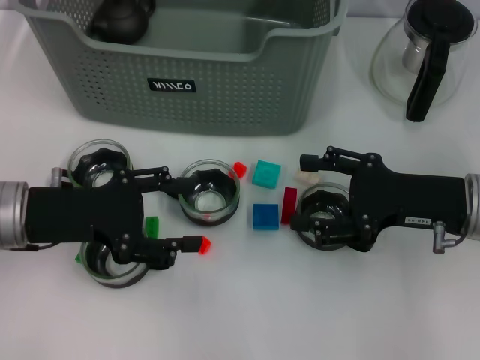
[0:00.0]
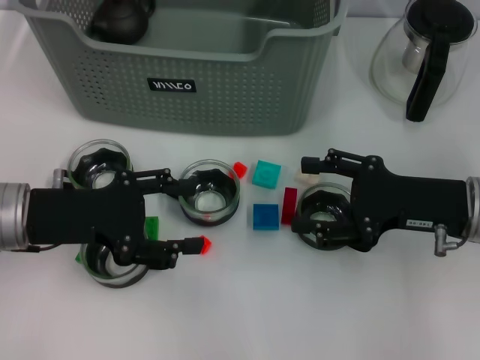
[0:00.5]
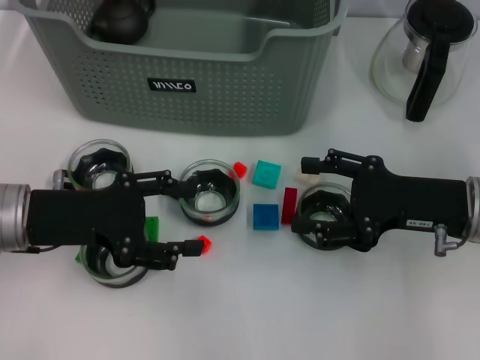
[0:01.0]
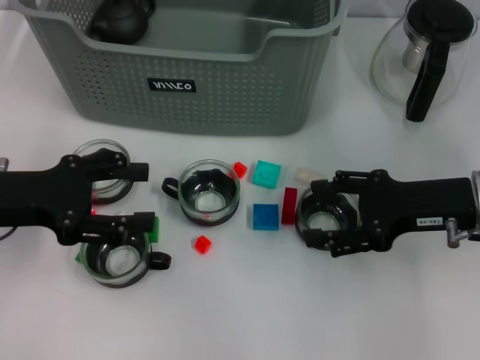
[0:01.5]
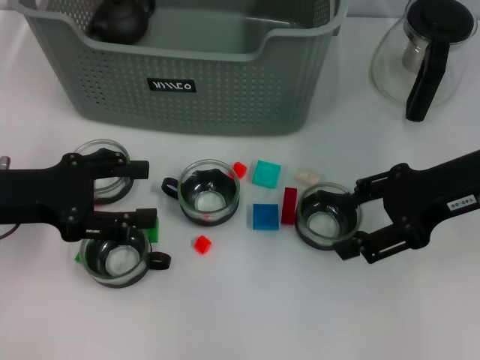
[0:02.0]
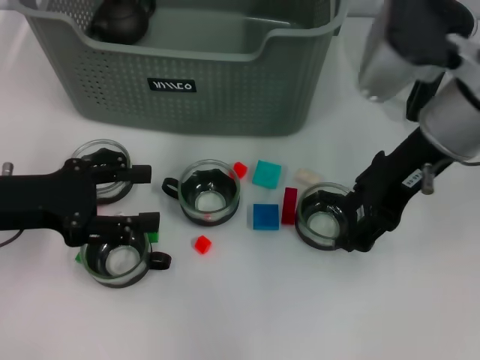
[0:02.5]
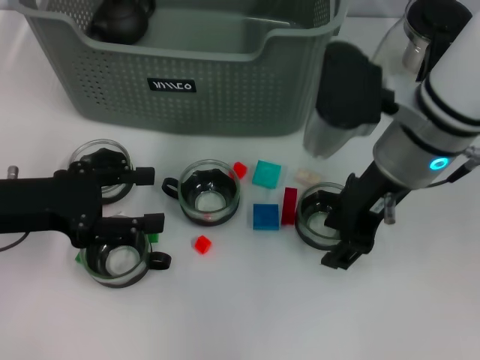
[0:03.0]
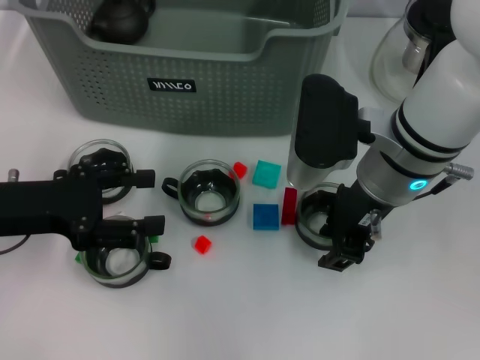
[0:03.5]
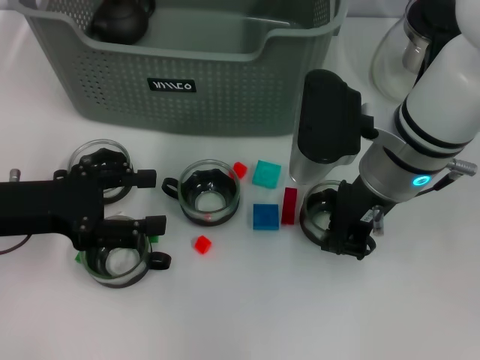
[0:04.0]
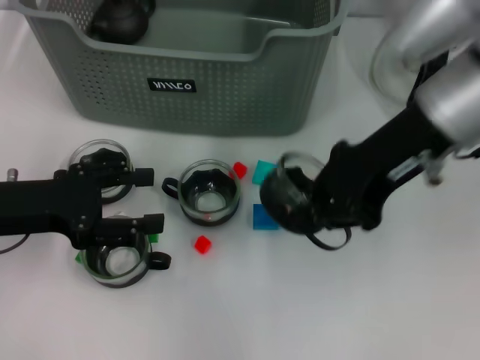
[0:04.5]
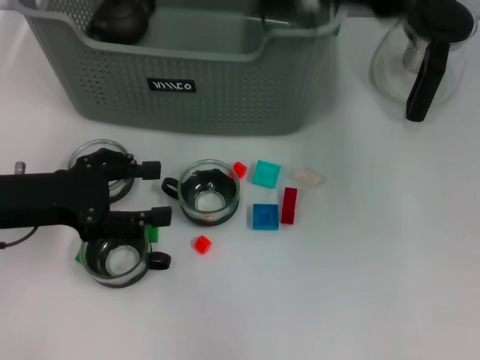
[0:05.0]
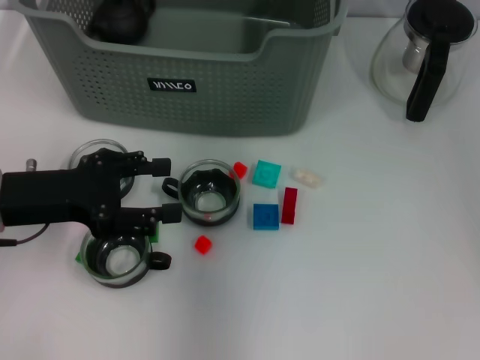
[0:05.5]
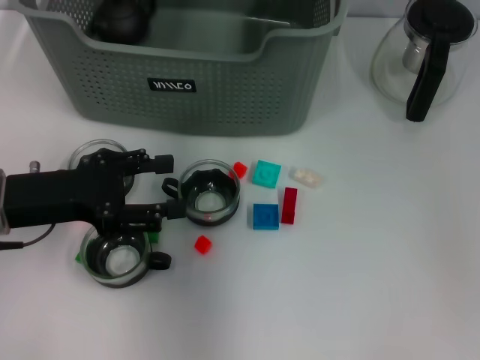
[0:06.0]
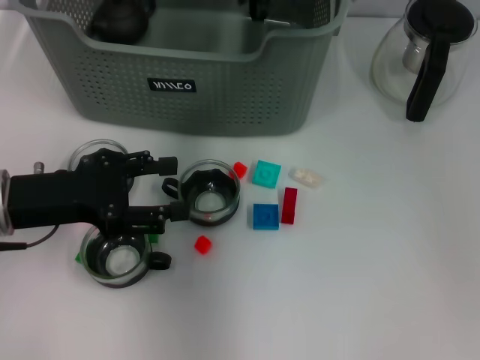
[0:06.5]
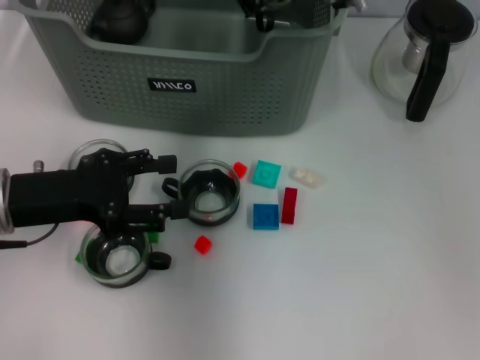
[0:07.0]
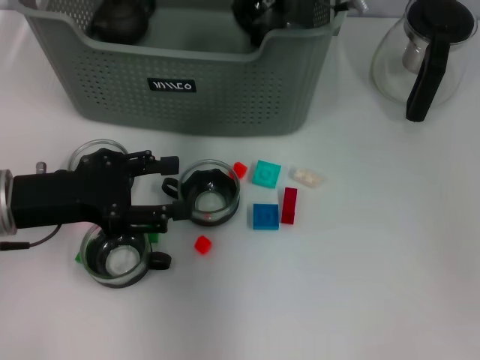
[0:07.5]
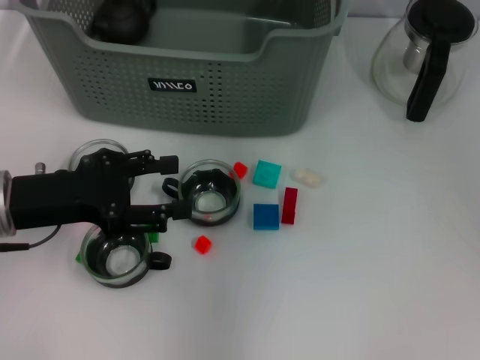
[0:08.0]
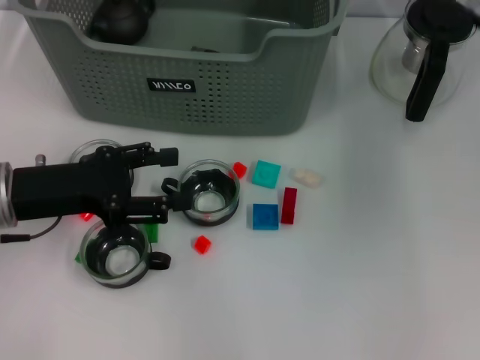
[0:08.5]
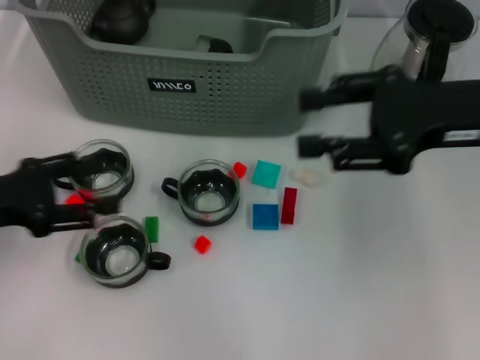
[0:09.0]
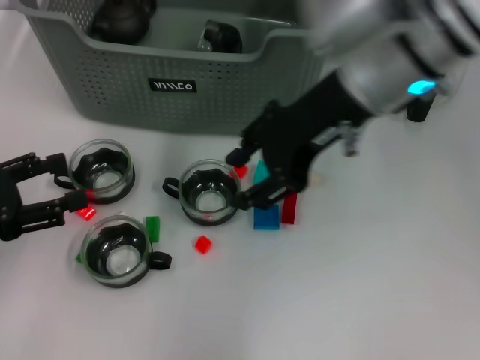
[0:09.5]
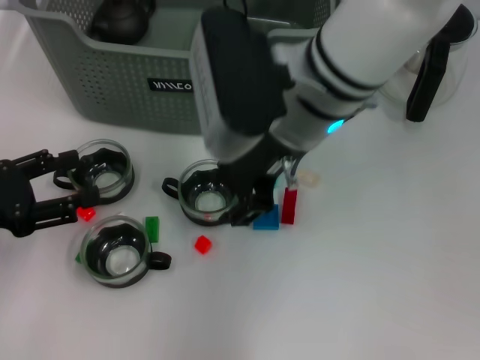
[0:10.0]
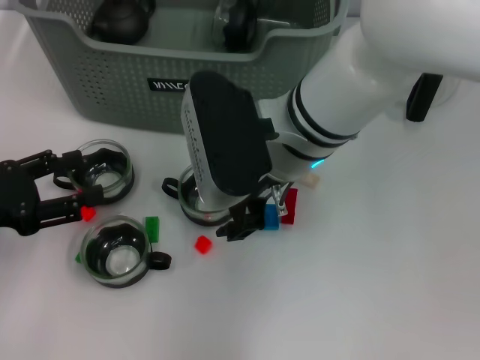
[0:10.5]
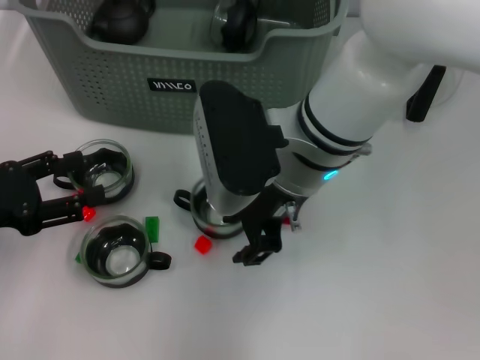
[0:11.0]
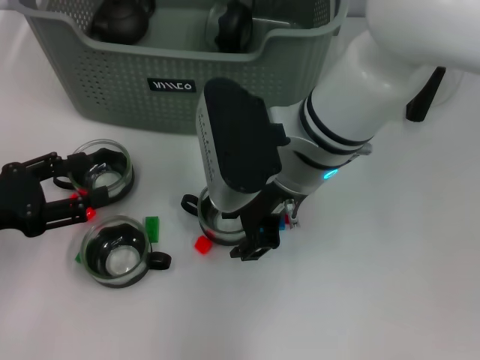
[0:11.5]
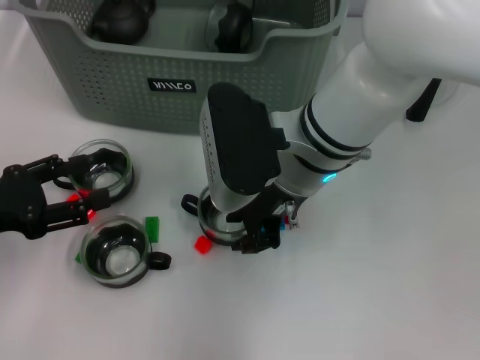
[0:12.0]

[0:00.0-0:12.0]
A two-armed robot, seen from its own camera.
Task of the whole recording: pick up the teacup on the table and place it into the storage bin, pick up the block on the table and place it into the storage bin.
Step, 0:00.0 to 0:03.5: Grasp the cup with right gripper.
Step, 0:04.5 to 0:07.5: Place the cup in the storage box with right gripper.
0:00.0 to 0:02.0: The right gripper moves upward, about 5 cm.
0:02.0 to 0:04.0: The right gripper heads to the left, covering about 10 cm, and closes up.
0:04.0 to 0:06.0: The right gripper moves forward, upward and to the left, about 20 cm.
0:06.0 to 0:08.0: The right gripper changes place by about 5 cm, and opens.
0:08.0 to 0:10.0: The left gripper goes some 5 cm to the left. The right gripper moves backward and downward, approximately 15 cm, and moves roughly 15 cm to the right and comes back.
0:10.0 to 0:12.0: The right gripper goes roughly 5 cm downward.

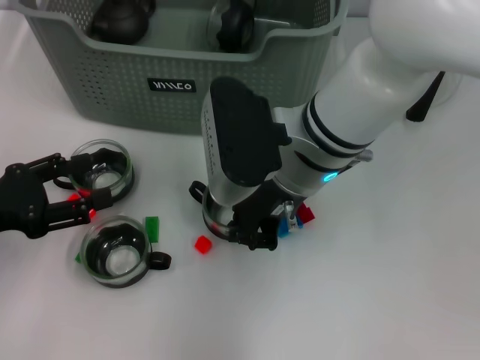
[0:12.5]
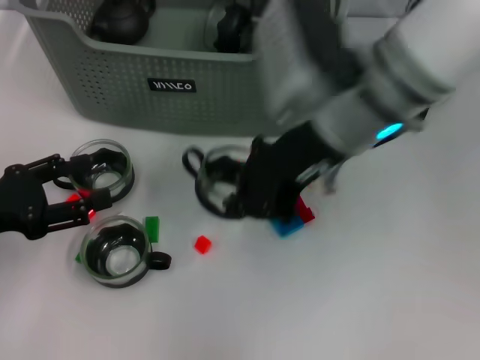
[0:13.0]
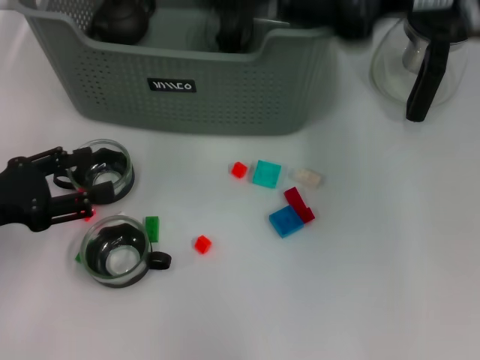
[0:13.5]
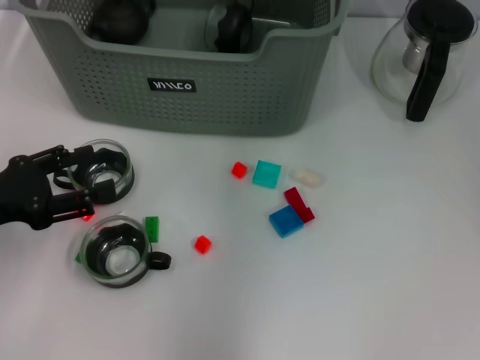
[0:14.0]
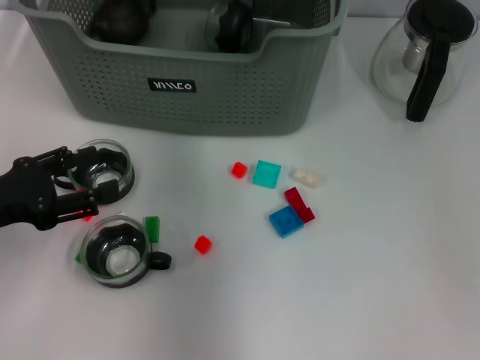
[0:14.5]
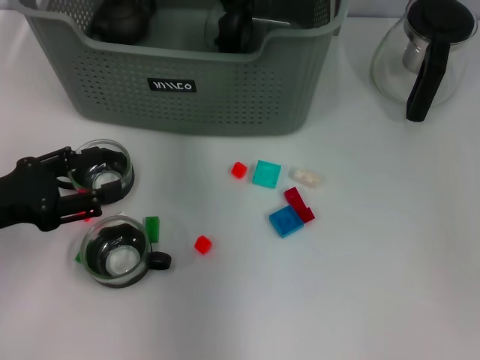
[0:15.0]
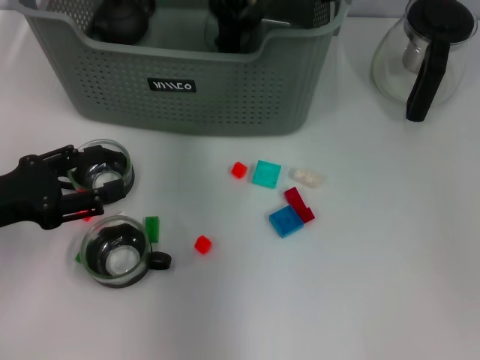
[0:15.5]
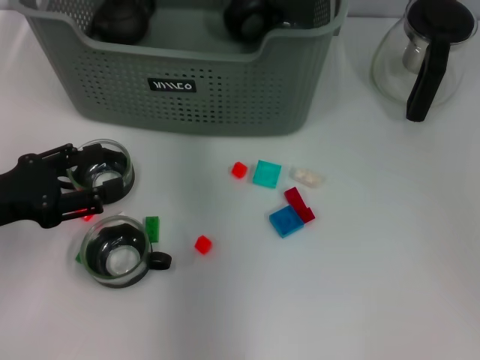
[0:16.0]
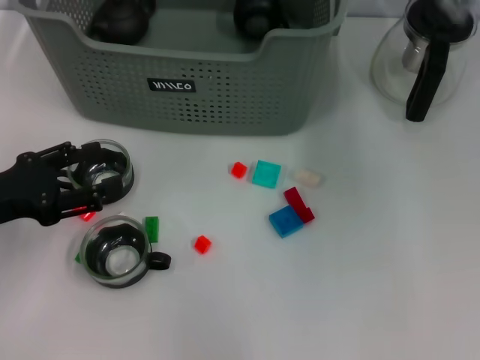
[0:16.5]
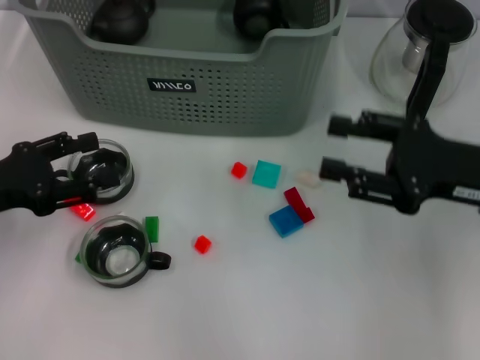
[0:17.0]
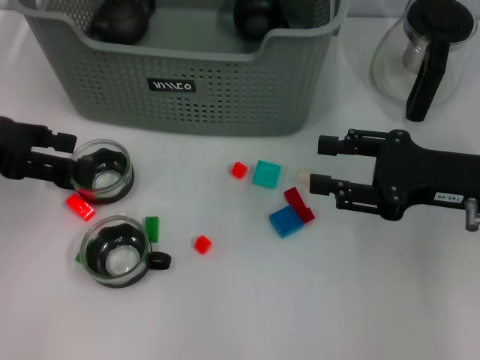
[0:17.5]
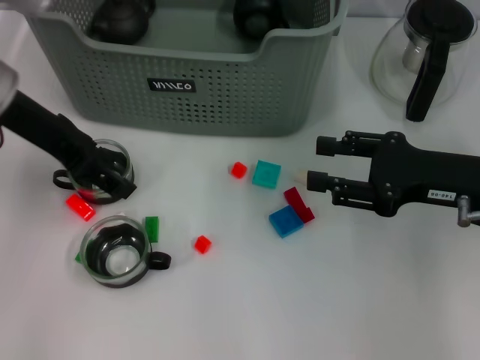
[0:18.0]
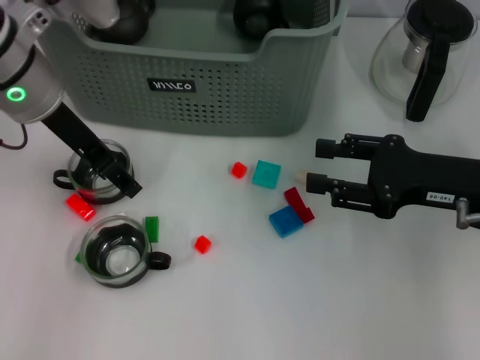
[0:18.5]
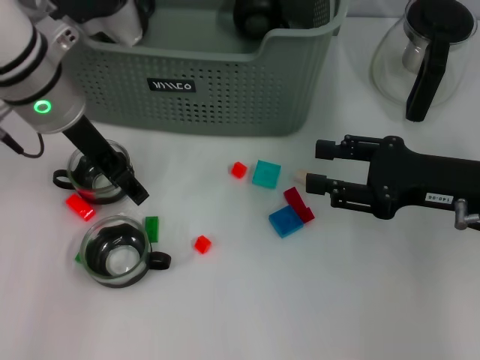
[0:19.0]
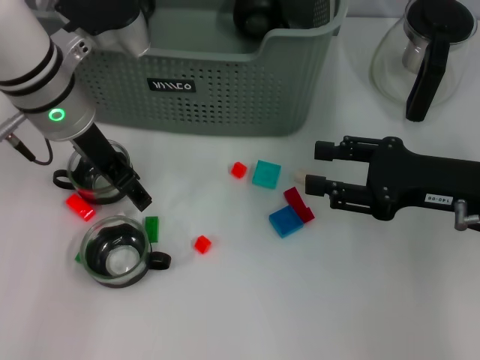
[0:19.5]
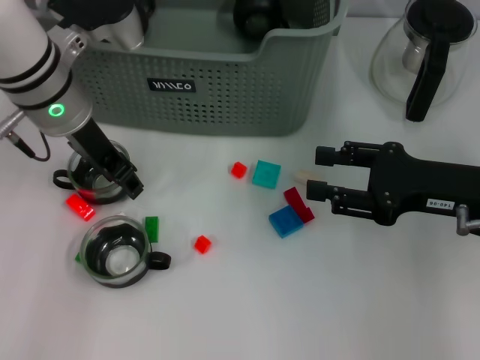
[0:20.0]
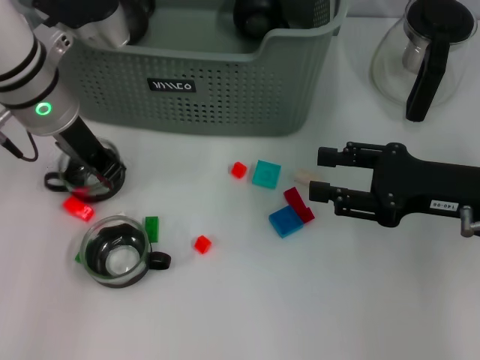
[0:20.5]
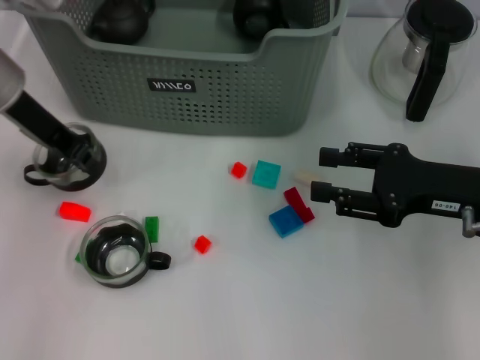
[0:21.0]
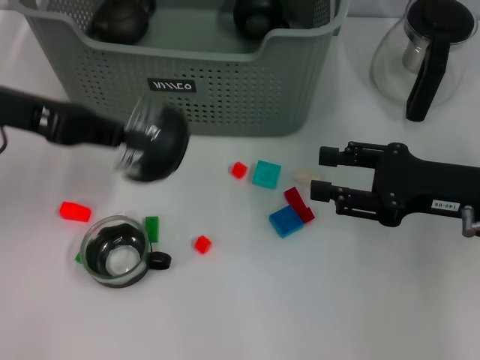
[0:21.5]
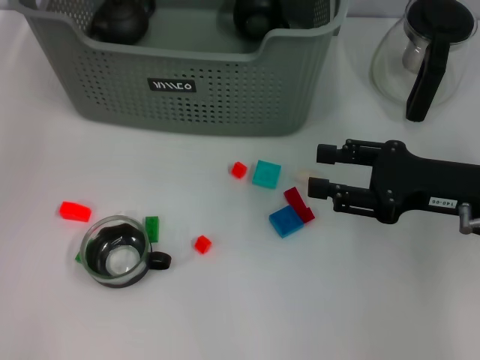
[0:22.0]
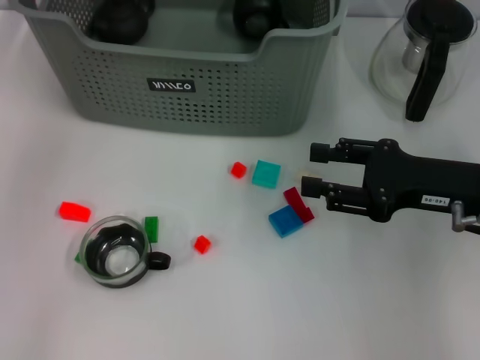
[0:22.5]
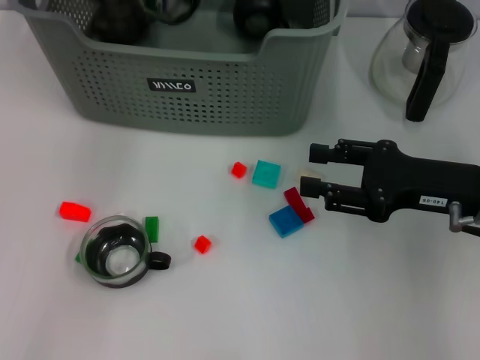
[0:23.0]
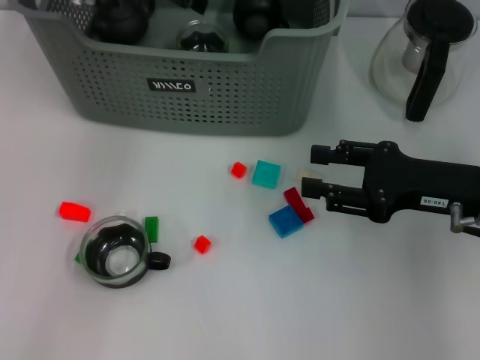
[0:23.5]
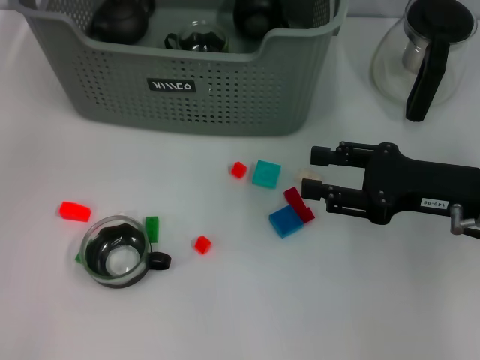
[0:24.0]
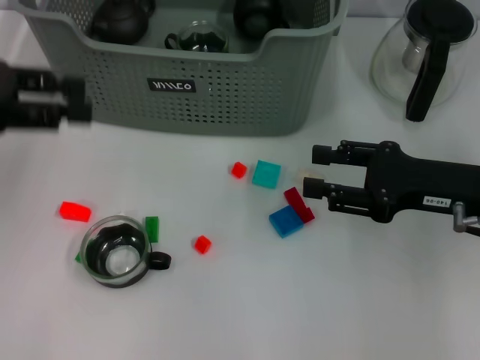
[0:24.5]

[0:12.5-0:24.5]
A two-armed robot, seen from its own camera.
Task of the whole recording: pick up the teacup on the table and place it into the storage bin, pick up the block on the table and place it into the storage bin.
Step, 0:12.5 to 0:15.5: Place the cup in the storage box with right gripper.
Step, 0:16.0 to 0:20.0: Grasp the cup with left gripper.
Step, 0:21.0 to 0:23.5: Place the cup in the storage box with left gripper.
0:12.5 to 0:14.5: The right gripper goes about 15 cm forward and upward.
0:14.5 to 0:16.5: The right gripper goes approximately 15 cm to the right and backward, and opens up.
0:16.5 to 0:18.5: The left gripper moves forward, to the right and upward, about 20 cm; the right gripper heads downward, backward and to the right, covering about 20 cm.
0:18.5 to 0:20.5: The left gripper closes its fingers.
0:20.5 to 0:22.5: The left gripper moves upward and forward, about 15 cm.
0:22.5 to 0:24.5: The left gripper shifts approximately 20 cm backward and to the left, and opens its fingers.

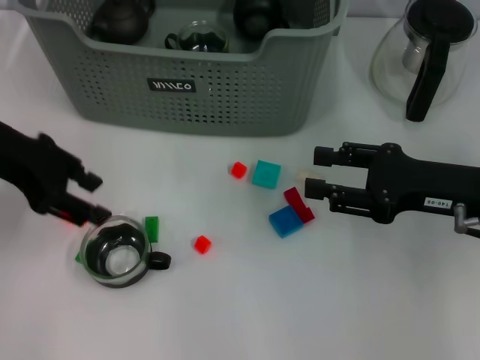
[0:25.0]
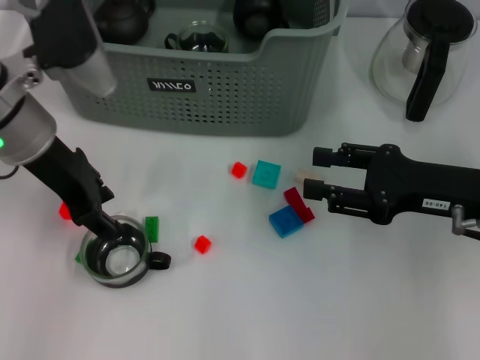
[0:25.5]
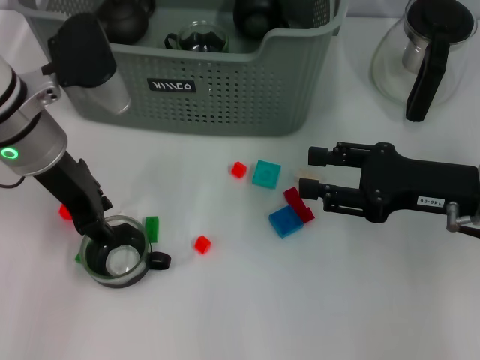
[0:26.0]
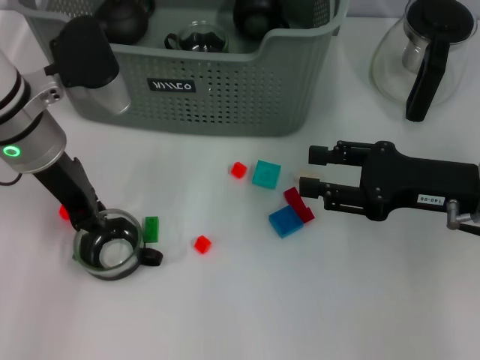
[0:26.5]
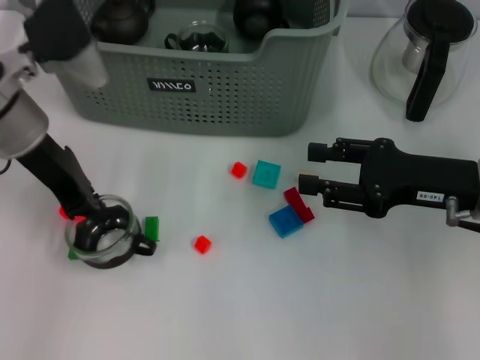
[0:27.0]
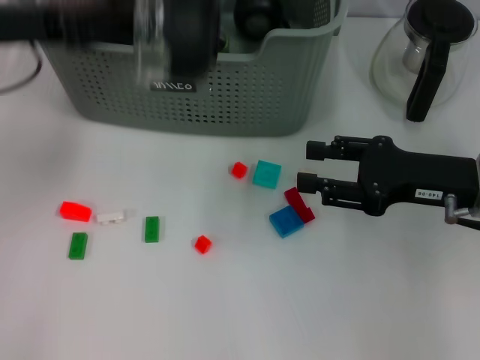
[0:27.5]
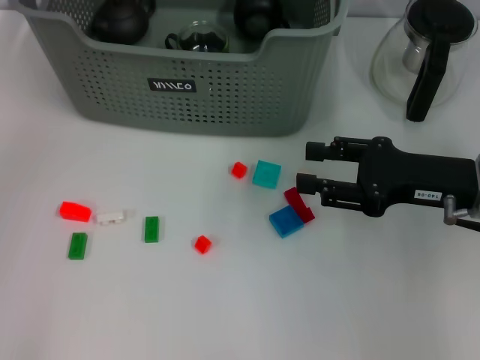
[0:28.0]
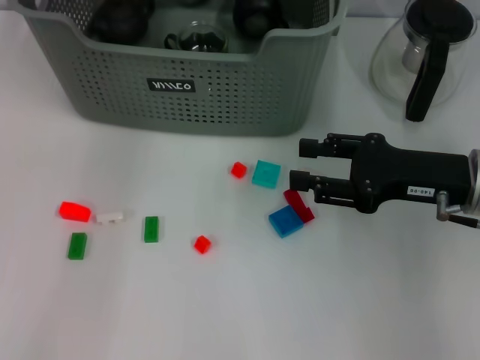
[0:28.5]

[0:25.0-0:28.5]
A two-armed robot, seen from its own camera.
Task of the whole recording: pick up the teacup on the table and place it into the storage bin, pick up the block on the table and place it into the storage bin.
Step, 0:25.0 to 0:26.5: Grasp the cup with left gripper.
0:25.0 to 0:27.0: The left gripper ends up roughly 5 cm from where it was, and closes its fingers.
0:27.0 to 0:28.5: The left gripper is displaced forward, upward and to the right by roughly 15 cm.
